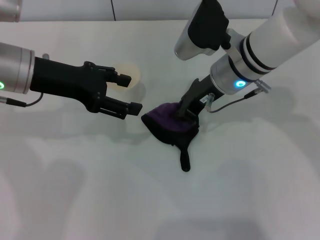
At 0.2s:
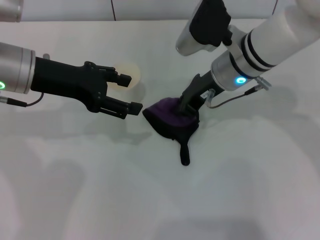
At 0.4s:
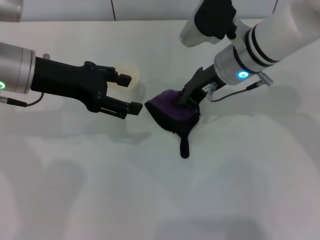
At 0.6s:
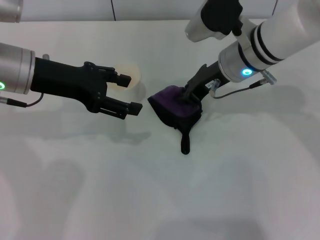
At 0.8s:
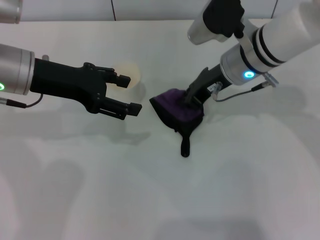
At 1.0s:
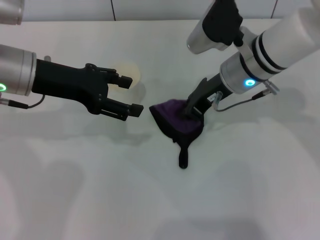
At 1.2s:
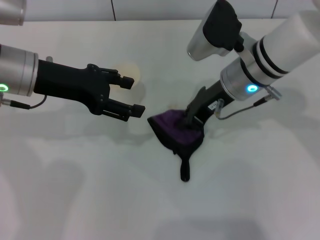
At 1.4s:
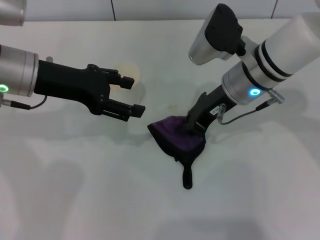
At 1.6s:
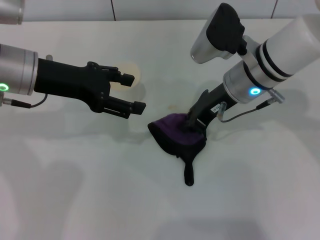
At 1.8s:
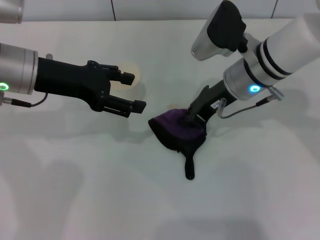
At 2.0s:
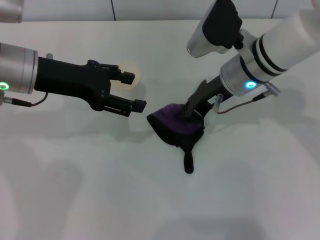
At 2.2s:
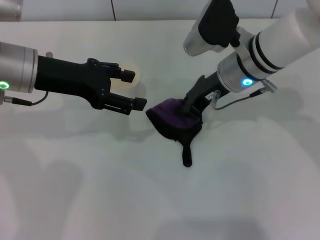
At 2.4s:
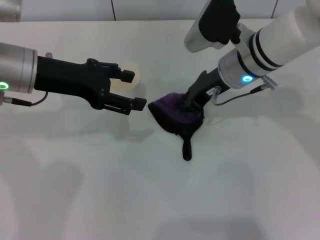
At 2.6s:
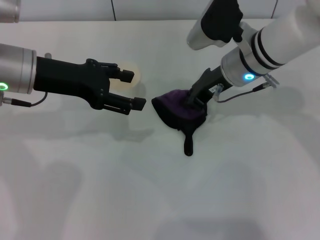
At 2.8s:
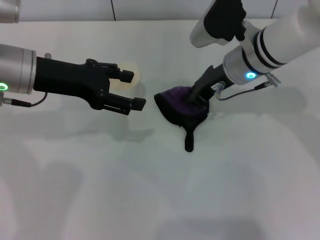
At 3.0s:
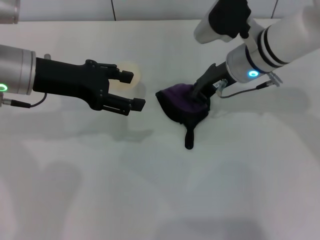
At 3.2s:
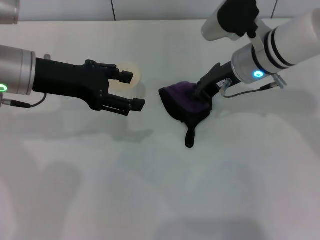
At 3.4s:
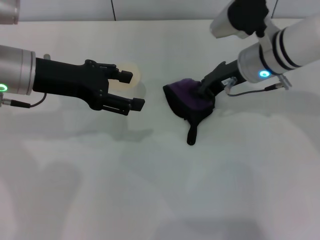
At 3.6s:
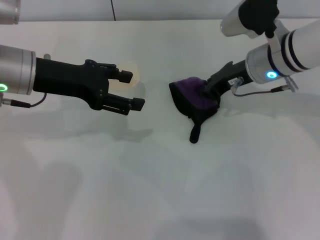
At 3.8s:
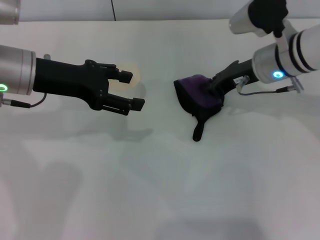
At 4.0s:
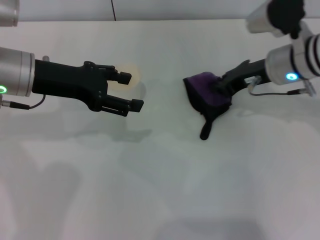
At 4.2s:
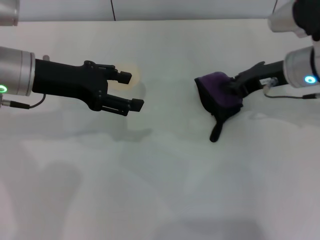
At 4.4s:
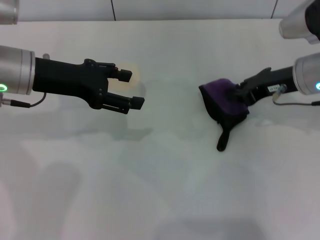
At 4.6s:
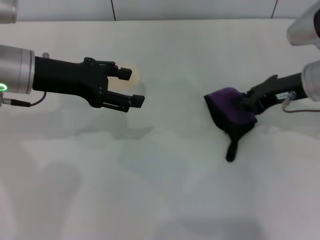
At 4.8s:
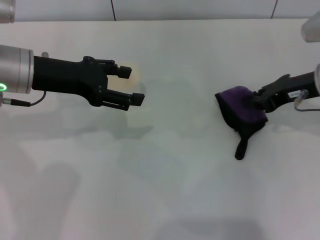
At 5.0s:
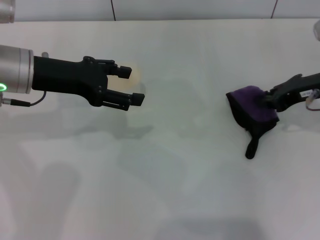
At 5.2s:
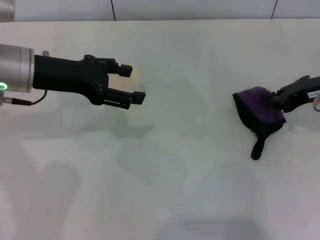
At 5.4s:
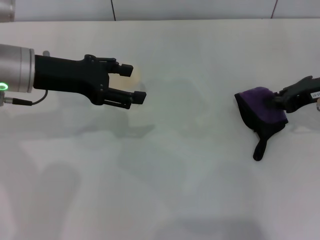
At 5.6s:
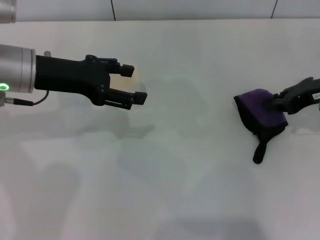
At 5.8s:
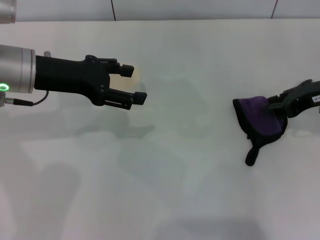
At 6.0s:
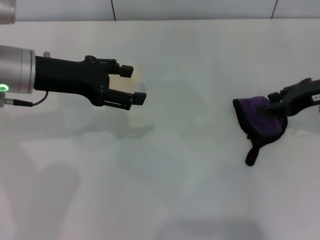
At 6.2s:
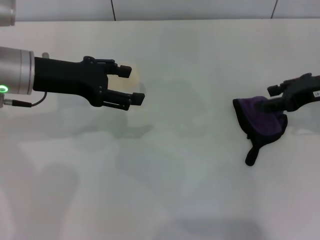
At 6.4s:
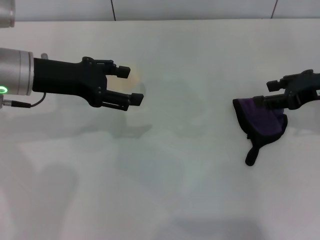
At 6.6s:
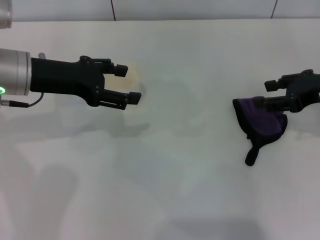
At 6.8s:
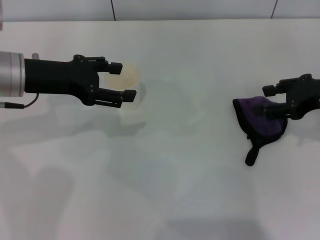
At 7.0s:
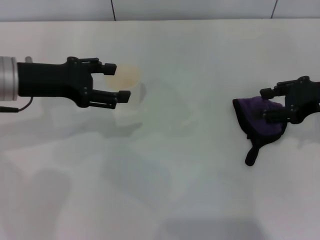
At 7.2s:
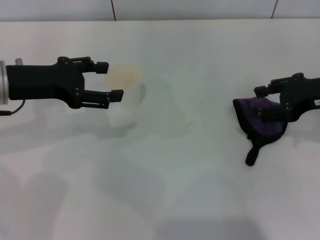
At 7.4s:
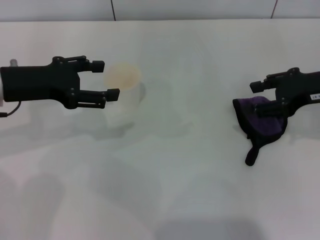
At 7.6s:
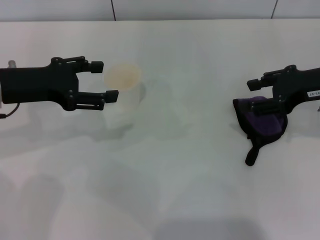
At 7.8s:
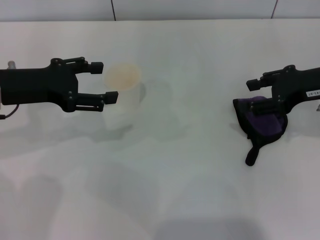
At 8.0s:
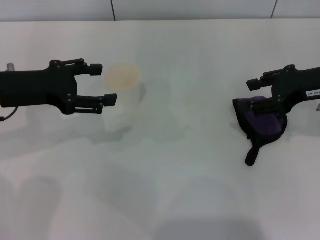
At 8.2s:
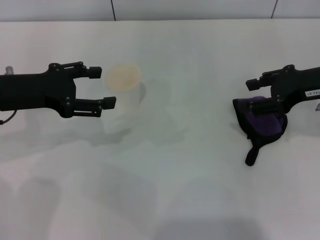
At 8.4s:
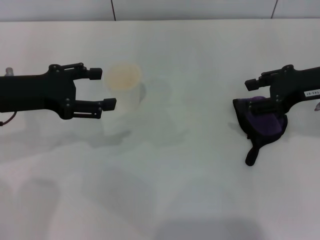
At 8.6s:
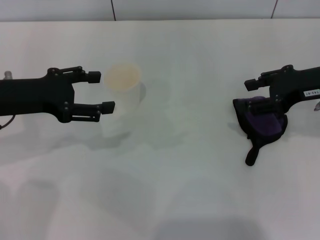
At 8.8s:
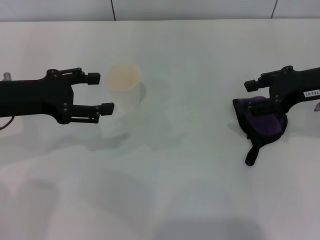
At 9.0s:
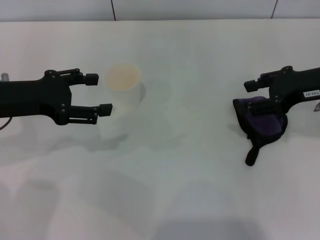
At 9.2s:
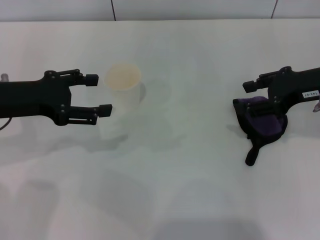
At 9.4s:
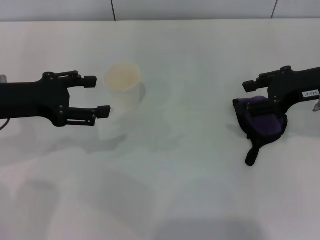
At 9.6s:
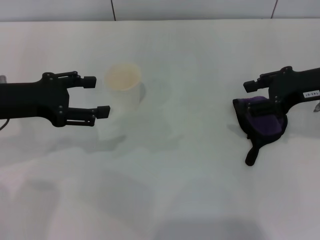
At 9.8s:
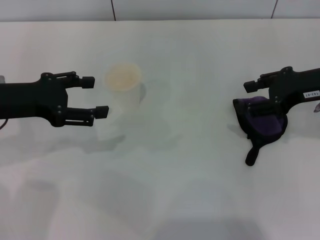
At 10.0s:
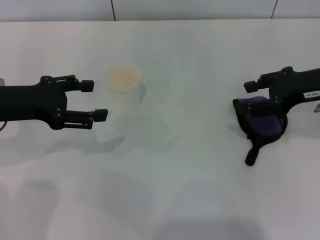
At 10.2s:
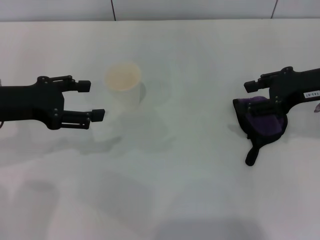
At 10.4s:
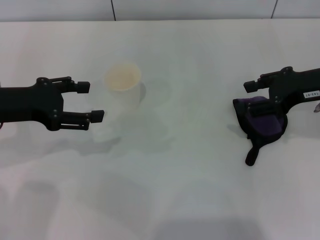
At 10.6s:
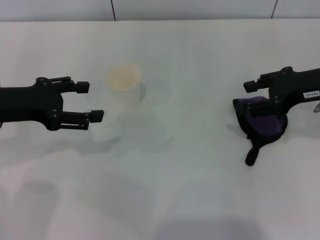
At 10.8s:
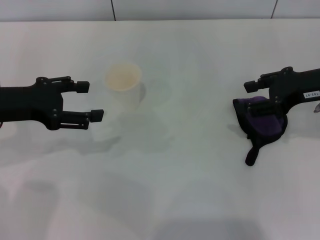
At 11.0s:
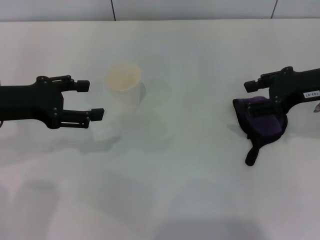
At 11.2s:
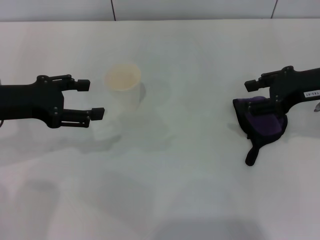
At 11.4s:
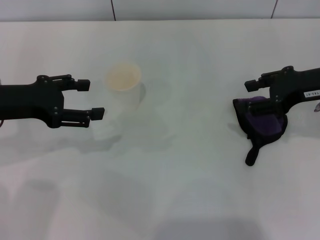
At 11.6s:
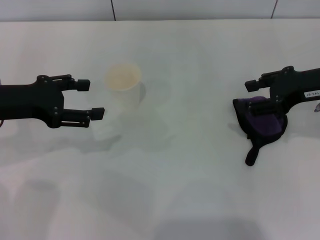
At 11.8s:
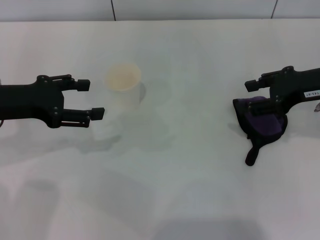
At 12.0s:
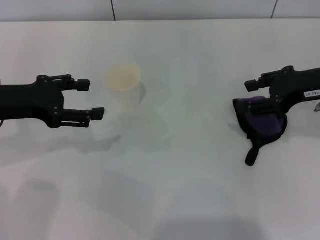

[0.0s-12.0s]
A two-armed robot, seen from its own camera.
Step, 0.0s to 3.6s: Wipe the stains off the table with the right gripper.
Step, 3.8s to 9.2s: Place the rag on the table with the right gripper.
0.0s to 3.0s: The grippers make only small movements.
3.0s to 4.4s: The right gripper travels to the right by approximately 10 cm.
4.4s to 6.0s: The right gripper moves to the right, roughly 5 cm, and opens.
6.0s to 7.6s: The left gripper changes place by roughly 5 cm, while the right gripper opens.
7.6s to 9.0s: There are only small adjustments of the grippers.
9.0s to 12.0s: Neither gripper changes place.

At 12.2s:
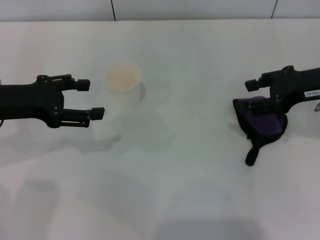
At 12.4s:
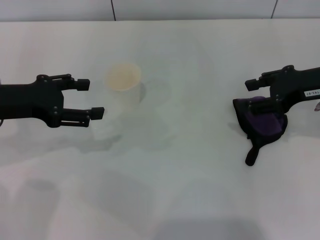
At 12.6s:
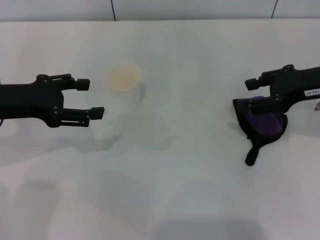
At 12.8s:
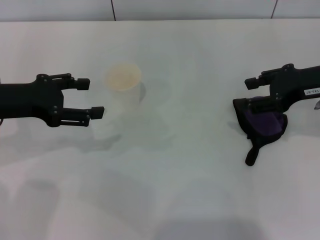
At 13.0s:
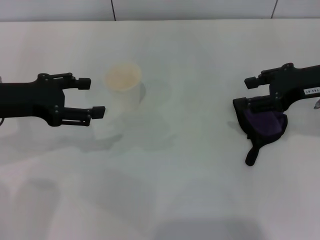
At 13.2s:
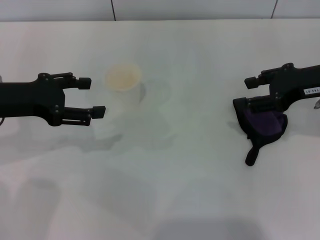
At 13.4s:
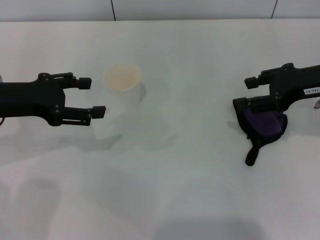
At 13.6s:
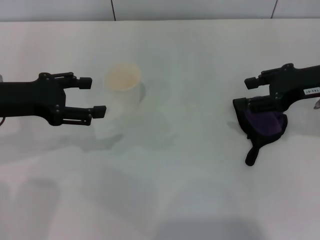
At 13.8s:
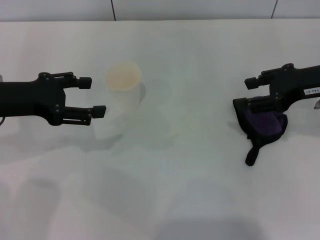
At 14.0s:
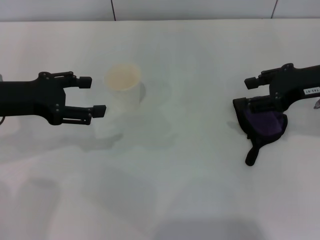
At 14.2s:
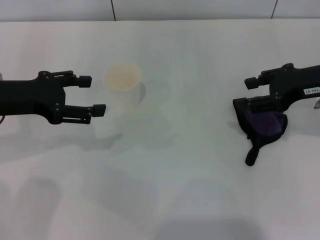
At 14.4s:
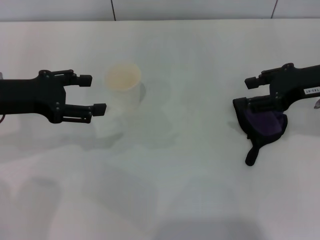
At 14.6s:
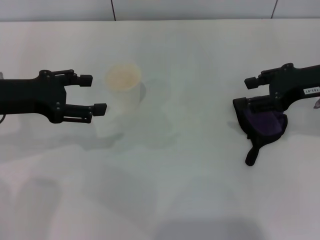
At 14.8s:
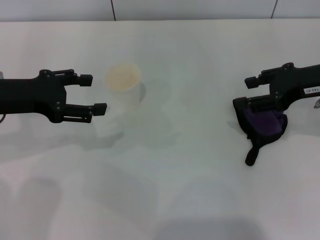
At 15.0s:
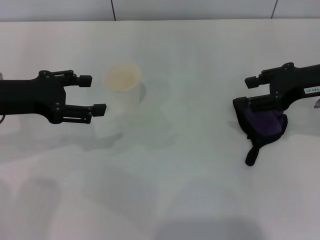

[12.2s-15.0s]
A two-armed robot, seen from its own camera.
12.2s to 15.0s: Neither gripper changes place.

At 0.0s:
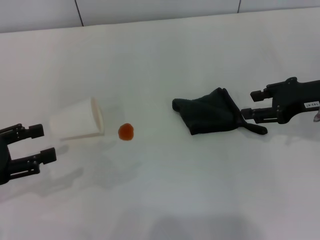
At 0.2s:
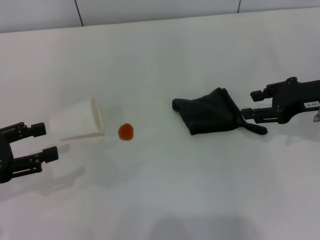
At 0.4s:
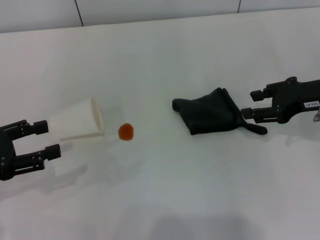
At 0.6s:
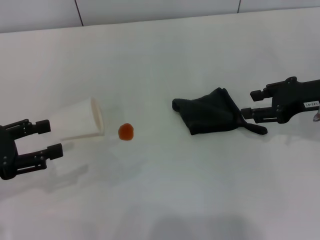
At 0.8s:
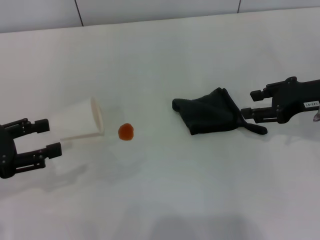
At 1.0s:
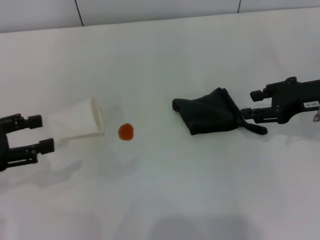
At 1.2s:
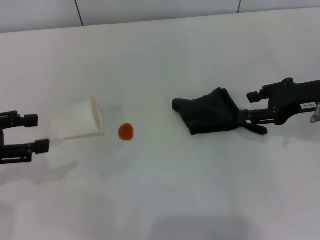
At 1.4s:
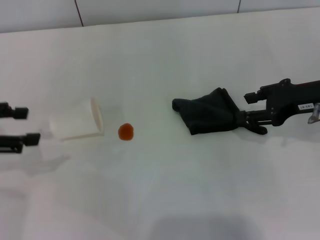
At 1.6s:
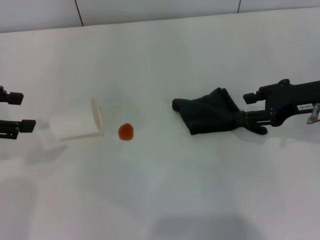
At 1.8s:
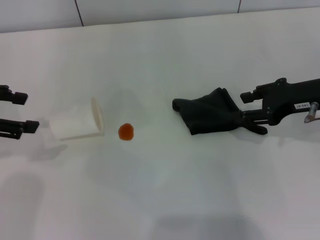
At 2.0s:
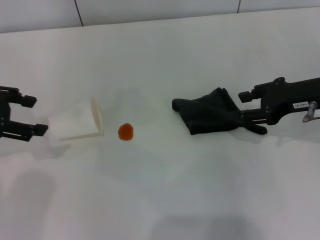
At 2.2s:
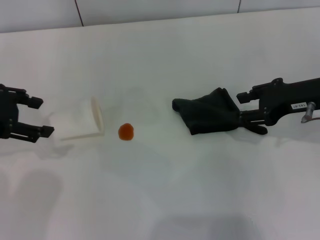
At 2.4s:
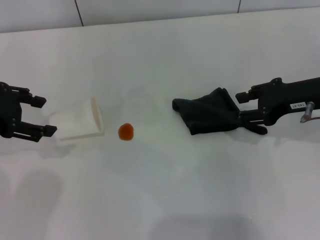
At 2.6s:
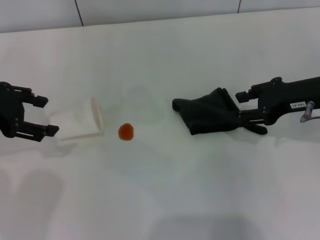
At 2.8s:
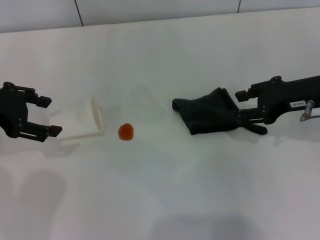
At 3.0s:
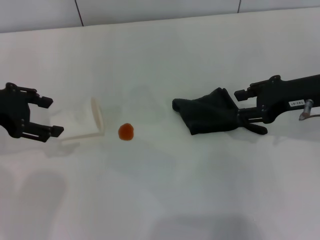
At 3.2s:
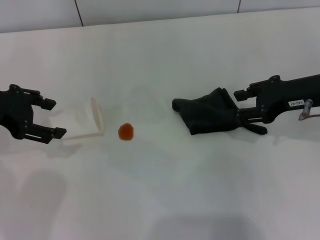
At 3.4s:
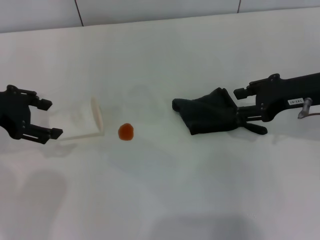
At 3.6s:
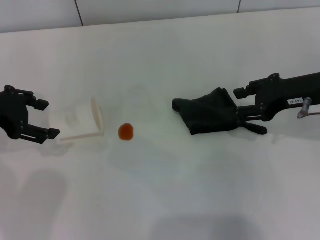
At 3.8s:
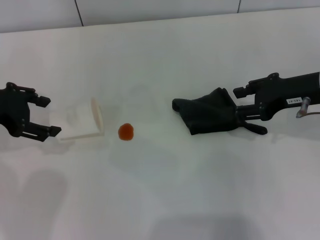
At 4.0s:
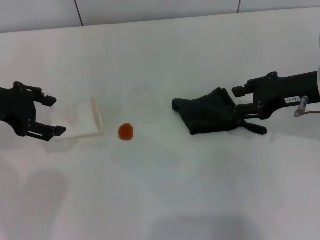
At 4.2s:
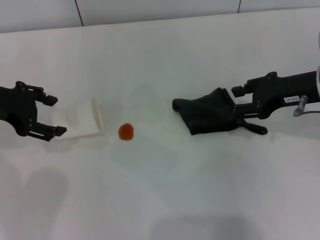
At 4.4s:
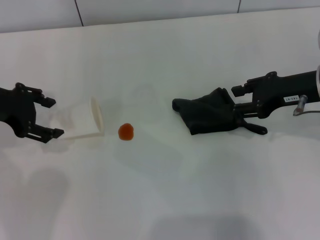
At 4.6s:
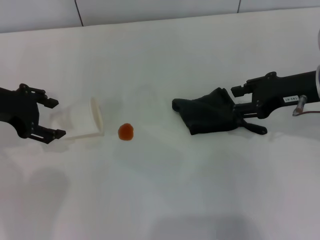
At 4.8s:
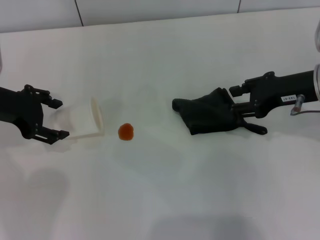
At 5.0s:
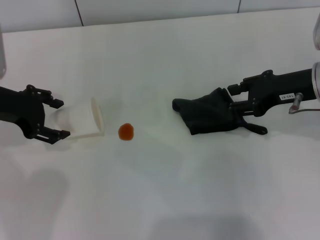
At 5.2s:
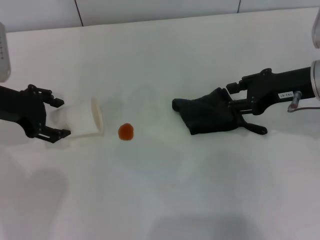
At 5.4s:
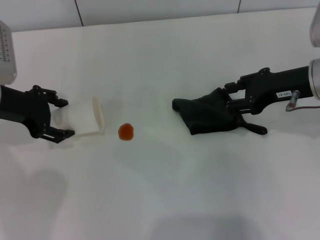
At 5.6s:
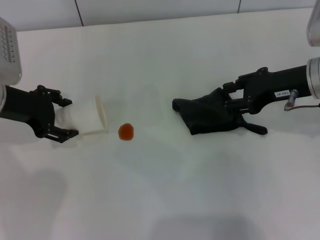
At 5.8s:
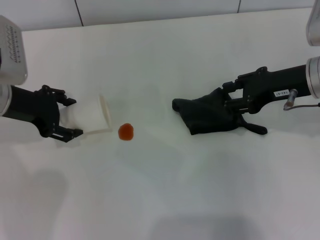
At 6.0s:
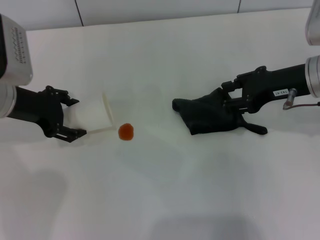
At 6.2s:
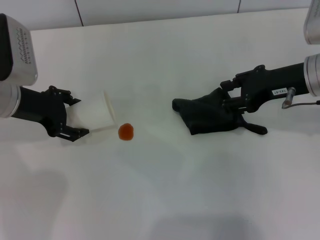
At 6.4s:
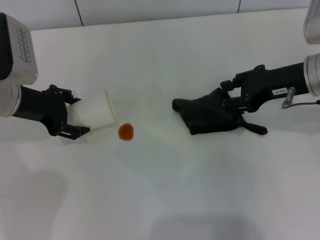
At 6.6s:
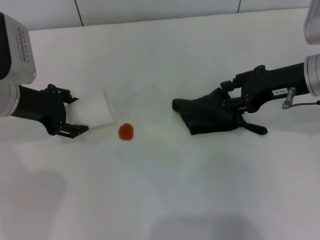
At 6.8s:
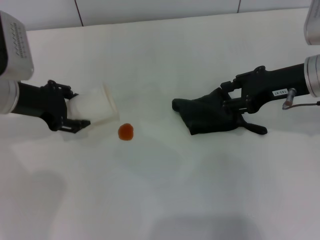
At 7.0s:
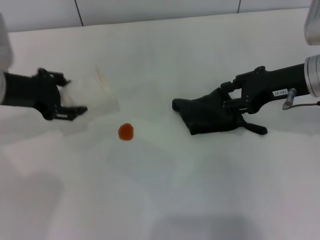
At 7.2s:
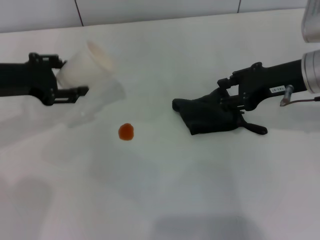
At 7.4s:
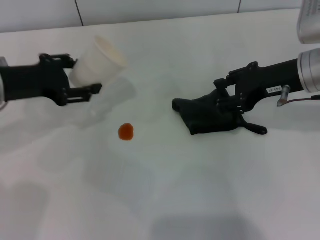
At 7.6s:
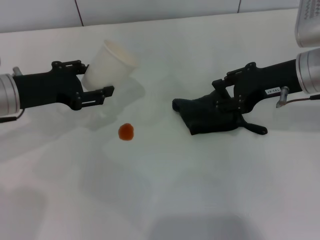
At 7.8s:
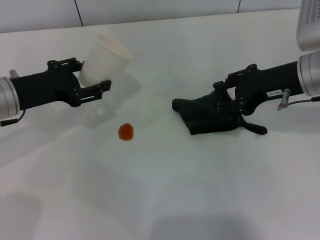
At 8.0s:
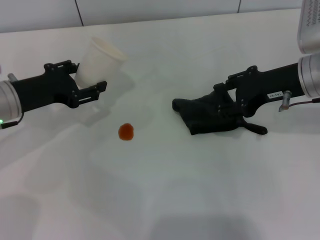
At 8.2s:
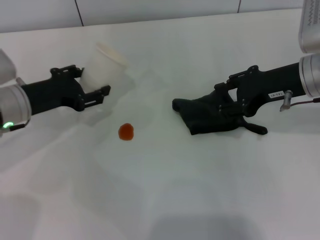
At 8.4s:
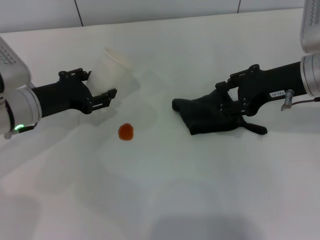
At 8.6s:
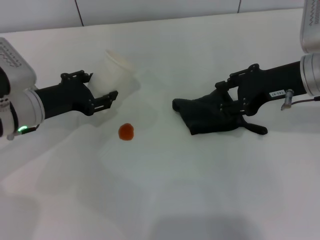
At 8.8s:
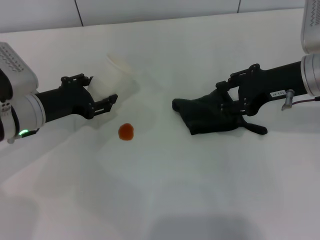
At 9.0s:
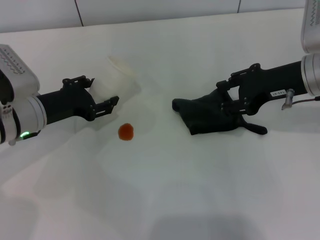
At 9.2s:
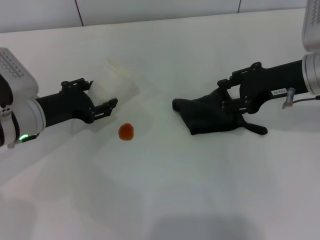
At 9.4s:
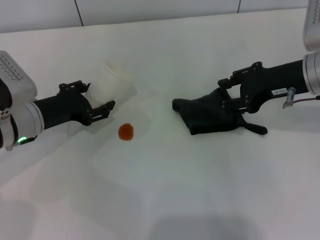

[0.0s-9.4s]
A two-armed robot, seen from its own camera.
Step, 0.0s to 6.0s: Grasp the paper cup with the left gripper.
0.0s to 1.6s: The left gripper heads upward and forward, covering some 10 cm.
1.6s to 3.2s: The left gripper moves to the right, roughly 5 cm.
3.2s to 4.8s: There are only small adjustments of the grippers.
4.8s to 6.2s: The grippers stay close to where they were, moving slightly.
6.2s to 7.8s: The left gripper closes.
7.8s to 9.4s: The left gripper moves some 5 cm.
